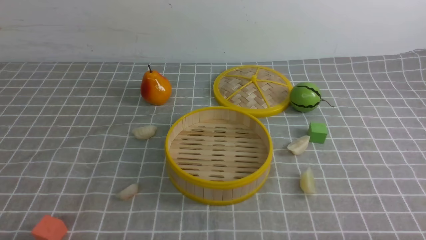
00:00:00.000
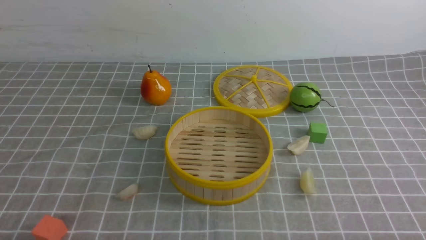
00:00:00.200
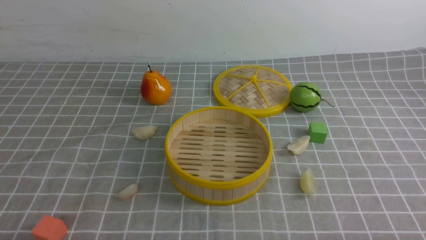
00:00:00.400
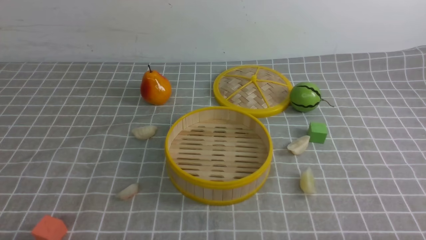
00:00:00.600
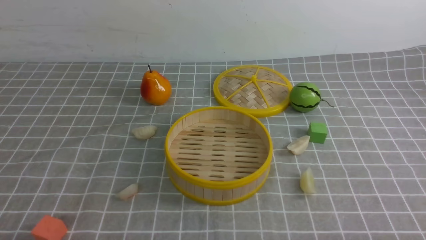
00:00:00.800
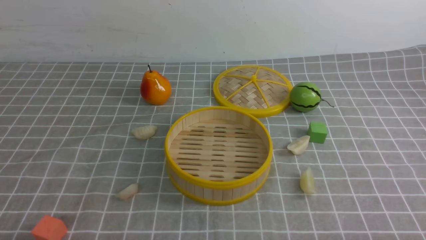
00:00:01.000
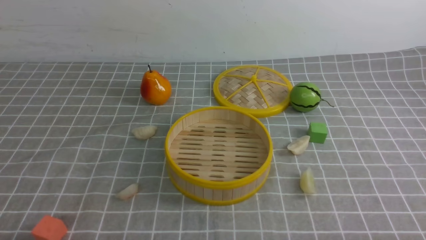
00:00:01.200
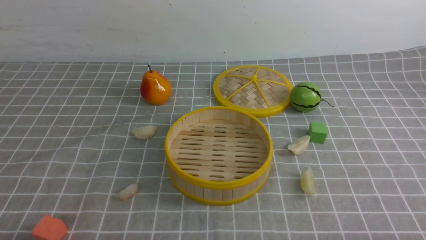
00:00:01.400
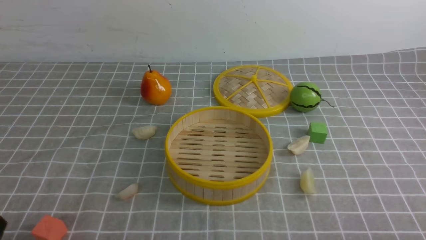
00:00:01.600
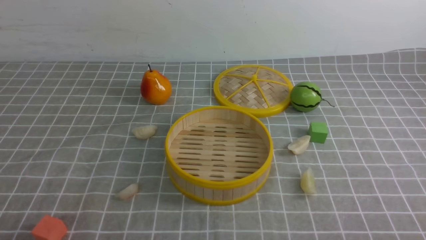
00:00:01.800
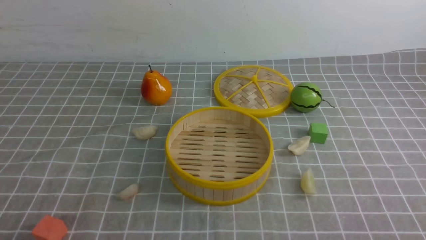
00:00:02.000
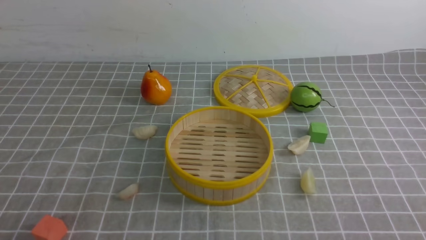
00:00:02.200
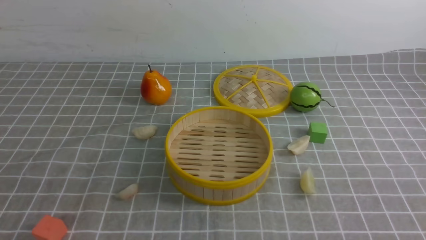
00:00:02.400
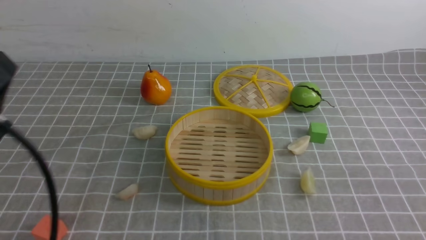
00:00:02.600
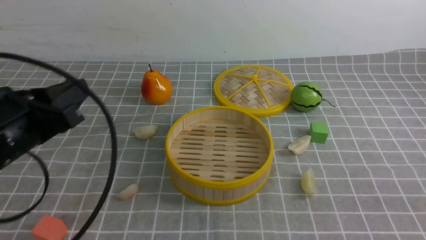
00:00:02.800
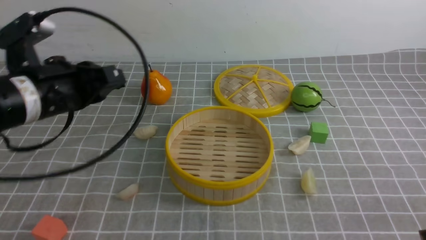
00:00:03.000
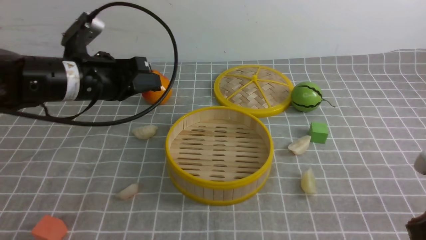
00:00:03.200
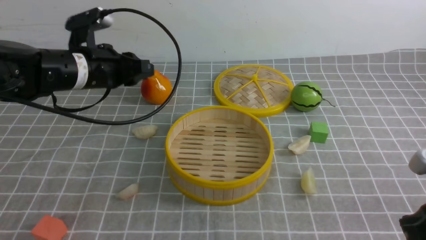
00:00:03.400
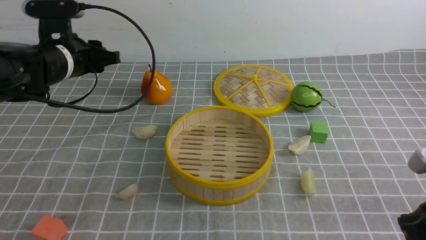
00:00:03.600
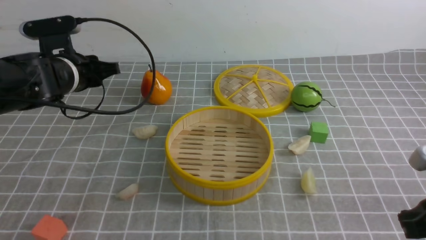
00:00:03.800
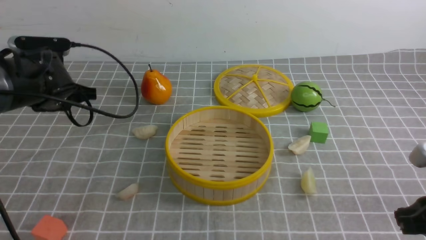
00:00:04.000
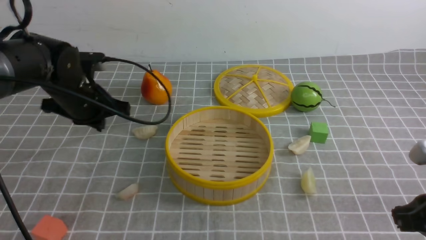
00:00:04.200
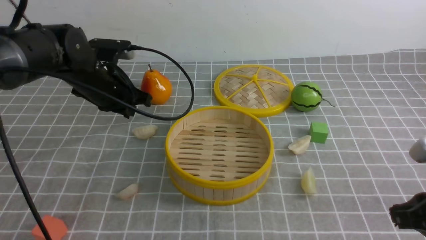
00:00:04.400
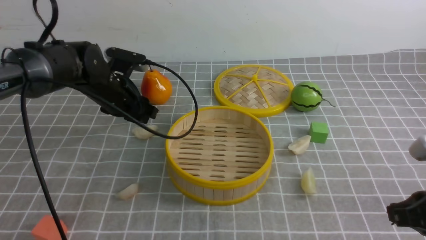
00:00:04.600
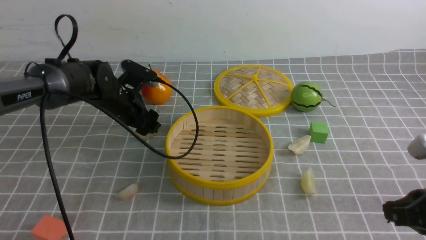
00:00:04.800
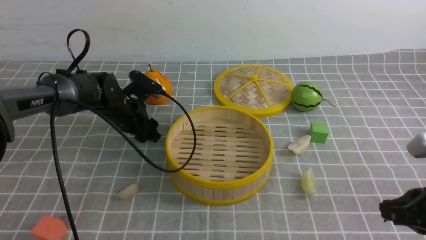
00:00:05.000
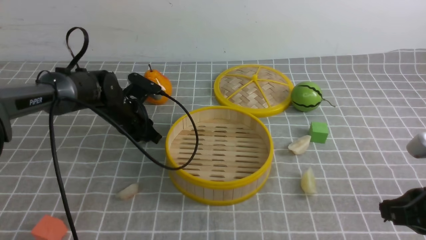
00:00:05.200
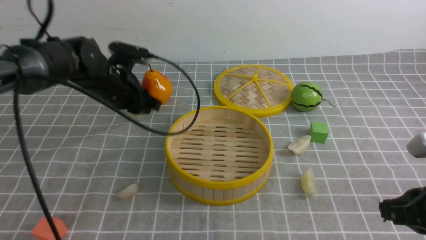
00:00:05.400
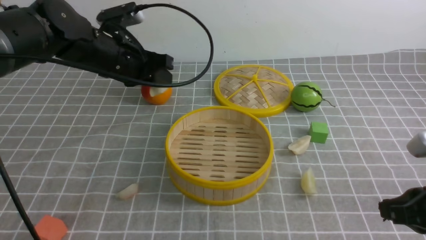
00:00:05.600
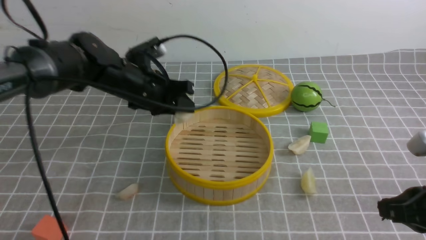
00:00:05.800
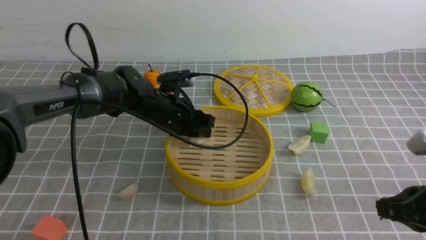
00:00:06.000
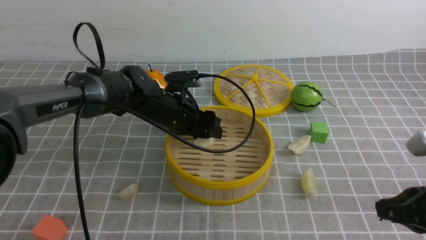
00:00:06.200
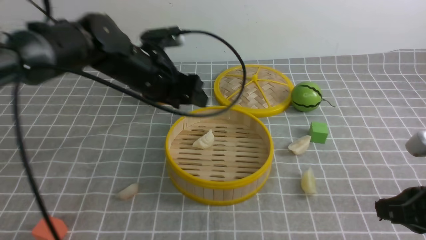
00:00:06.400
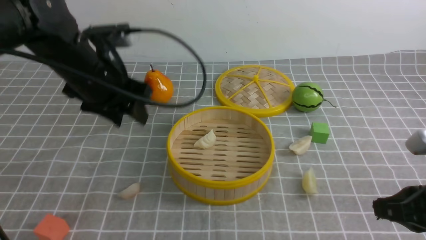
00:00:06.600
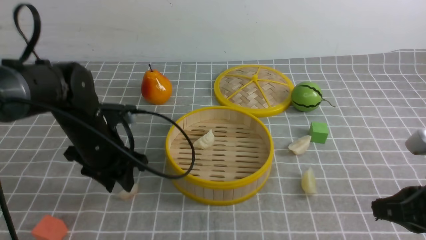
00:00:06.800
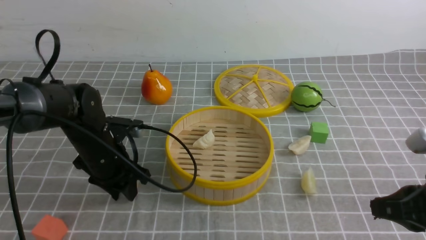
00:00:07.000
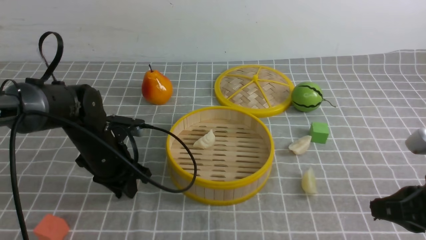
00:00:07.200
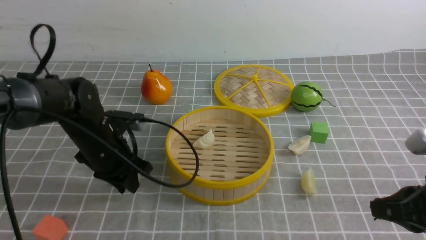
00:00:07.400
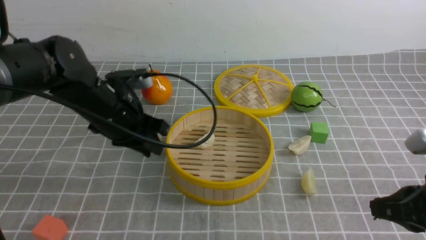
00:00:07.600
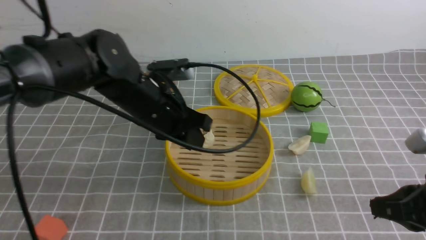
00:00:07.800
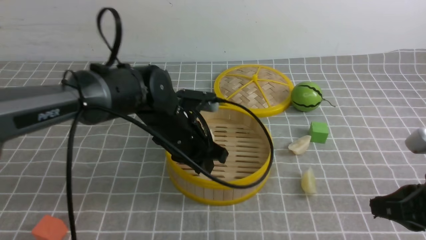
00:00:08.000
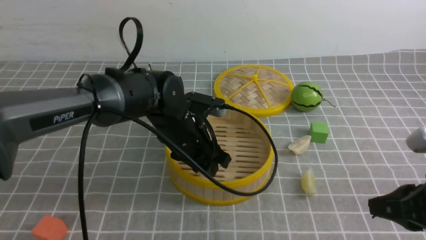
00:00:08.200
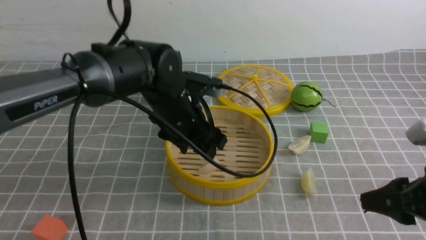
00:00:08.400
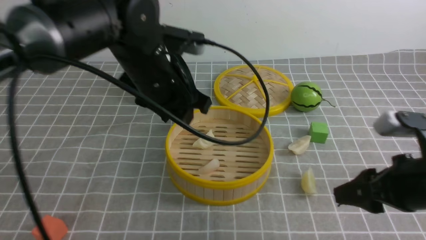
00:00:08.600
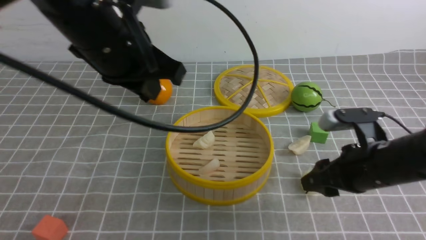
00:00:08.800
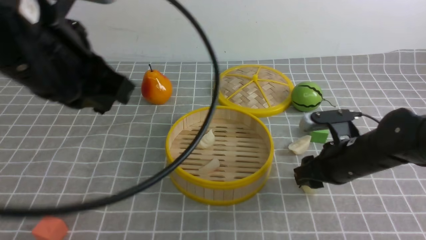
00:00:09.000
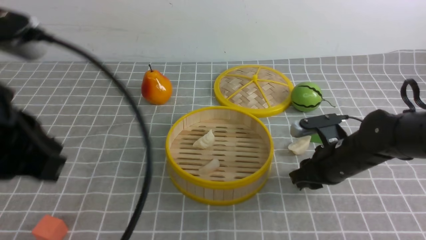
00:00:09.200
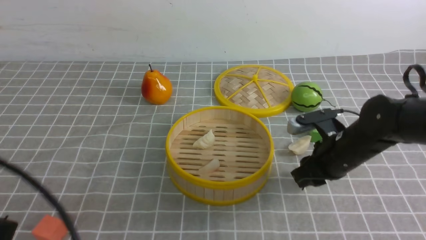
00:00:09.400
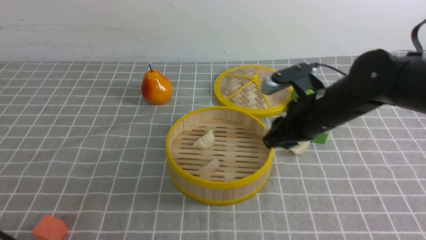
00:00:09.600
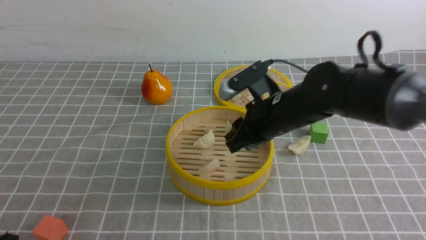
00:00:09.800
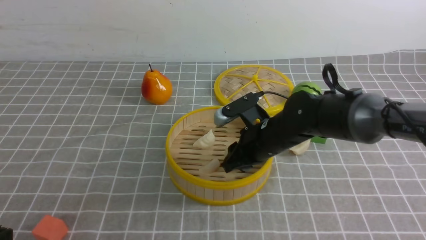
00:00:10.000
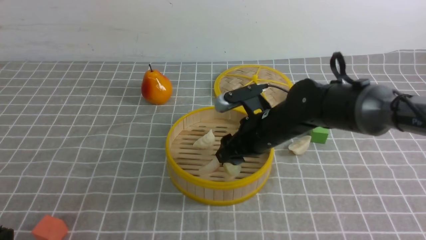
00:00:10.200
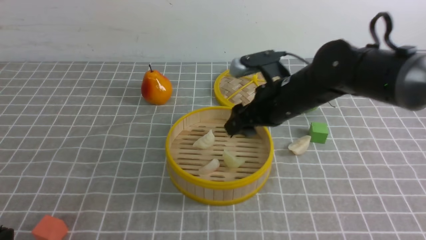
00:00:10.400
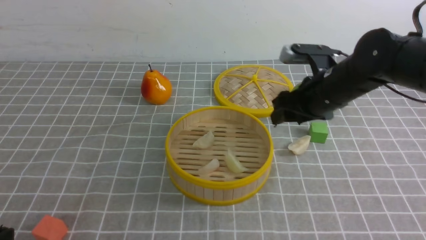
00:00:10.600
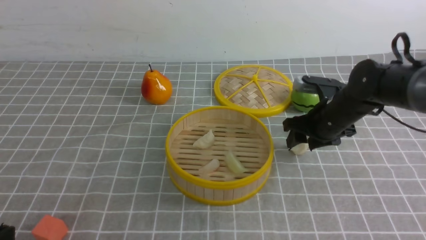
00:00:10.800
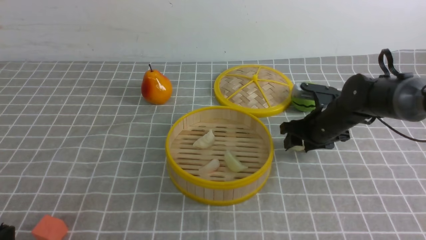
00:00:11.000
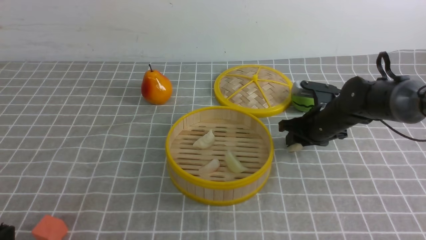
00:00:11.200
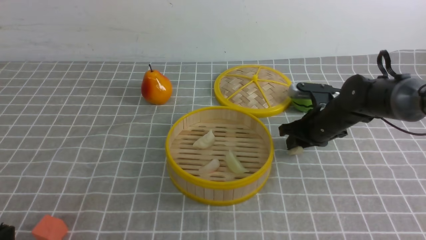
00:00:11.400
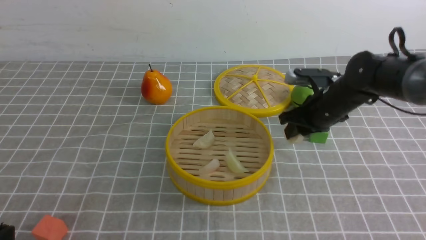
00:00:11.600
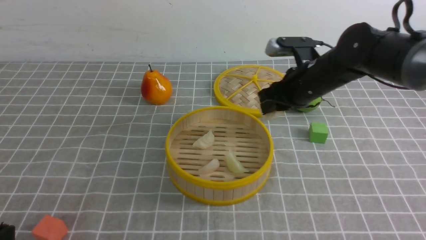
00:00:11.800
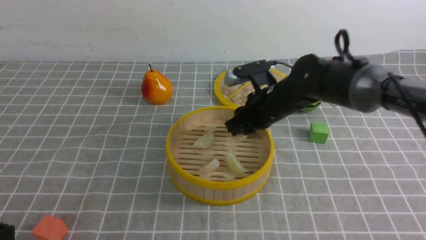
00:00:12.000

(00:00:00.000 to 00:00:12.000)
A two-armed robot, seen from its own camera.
Task of the whole recording: put the dumplings into the steamer on the table with the grey tablecloth.
Step, 00:00:00.000 - 00:00:05.200: use the left arm to grab a dumpling.
Step, 00:00:05.400 - 00:00:06.200: use the left arm to put the dumpling into the steamer.
Step, 00:00:06.400 - 00:00:07.400: use the left arm to grab a dumpling.
Step, 00:00:07.600 - 00:00:08.400: use the left arm to put the dumpling into the steamer.
Step, 00:00:08.600 - 00:00:09.400: use the right arm to grab a dumpling.
Step, 00:00:09.600 - 00:00:10.200: use the right arm to put the dumpling into the steamer.
Step, 00:00:10.400 - 00:00:11.400: use the right arm to grab a dumpling.
00:00:01.600 - 00:00:03.000: The left gripper is displaced forward and upward by roughly 25 cm.
00:00:03.000 - 00:00:04.400: The left gripper moves forward and downward, approximately 15 cm.
00:00:04.400 - 00:00:06.000: The left gripper goes up and down, approximately 10 cm each way, reversing 2 times, and opens its fingers.
00:00:06.000 - 00:00:07.600: The left gripper swings up and down, approximately 10 cm each way, with 2 reversals, and closes up.
00:00:07.600 - 00:00:09.000: The left gripper heads upward and backward, covering approximately 25 cm, and opens, then closes once more. Meanwhile the right gripper moves forward, downward and to the left, some 15 cm, and opens.
00:00:09.000 - 00:00:10.400: The left gripper goes about 25 cm downward, backward and to the left. The right gripper travels to the left, upward and forward by roughly 10 cm.
00:00:10.400 - 00:00:12.000: The right gripper reaches some 10 cm to the right, then returns, and closes up.

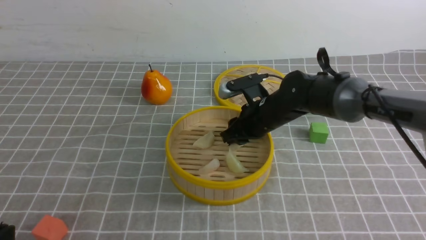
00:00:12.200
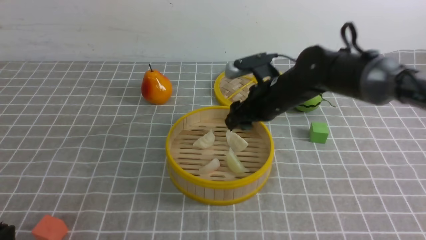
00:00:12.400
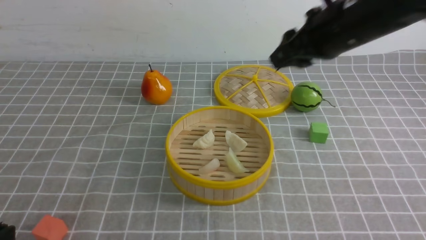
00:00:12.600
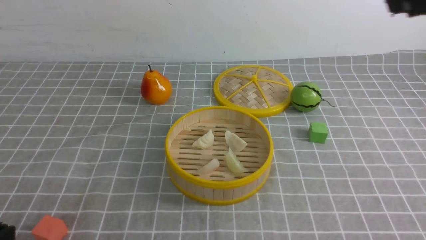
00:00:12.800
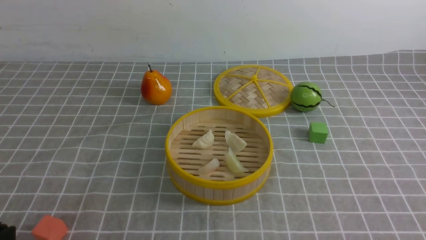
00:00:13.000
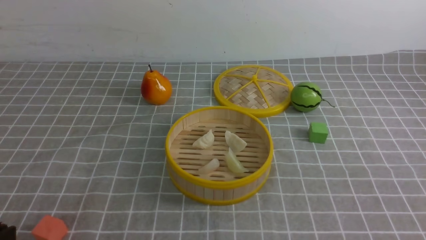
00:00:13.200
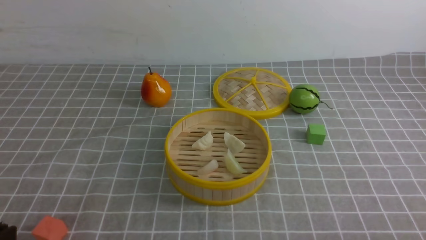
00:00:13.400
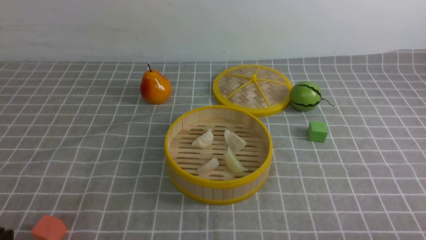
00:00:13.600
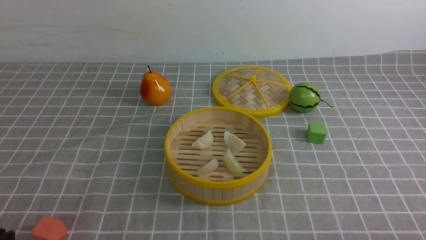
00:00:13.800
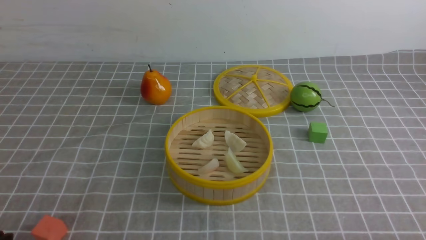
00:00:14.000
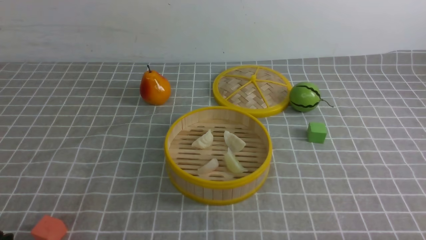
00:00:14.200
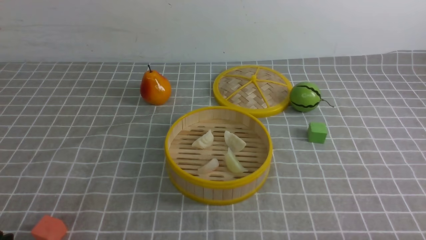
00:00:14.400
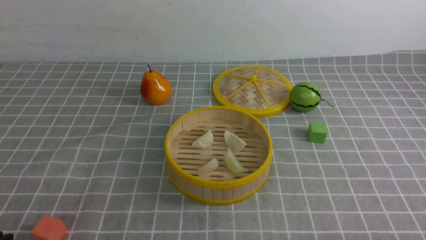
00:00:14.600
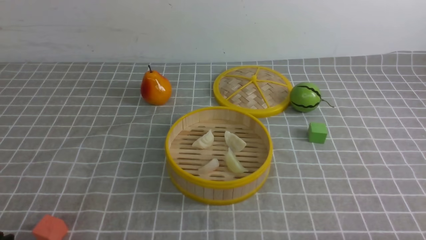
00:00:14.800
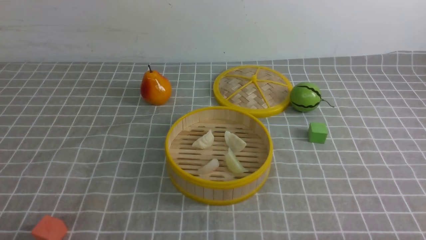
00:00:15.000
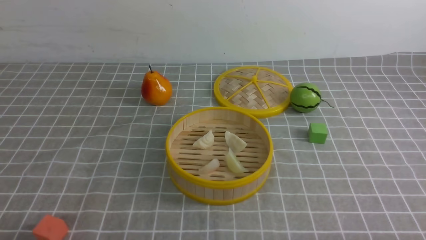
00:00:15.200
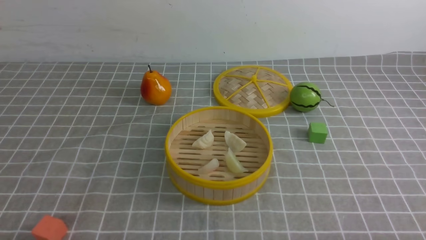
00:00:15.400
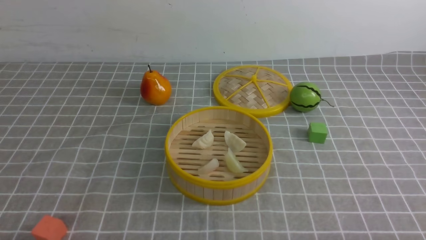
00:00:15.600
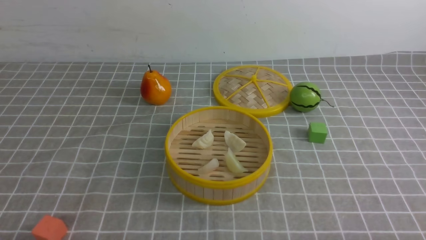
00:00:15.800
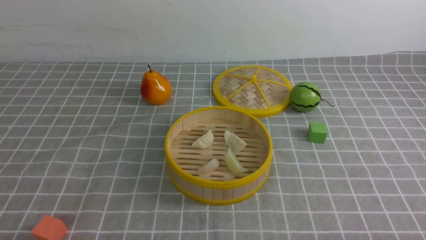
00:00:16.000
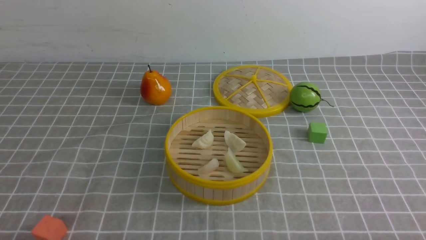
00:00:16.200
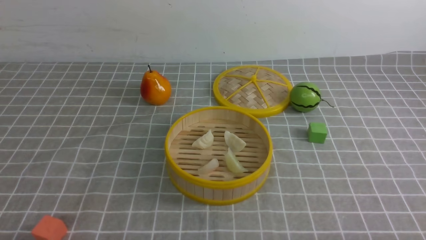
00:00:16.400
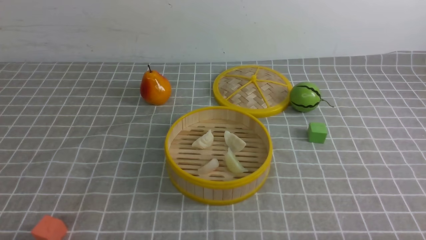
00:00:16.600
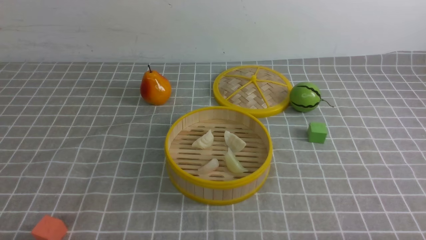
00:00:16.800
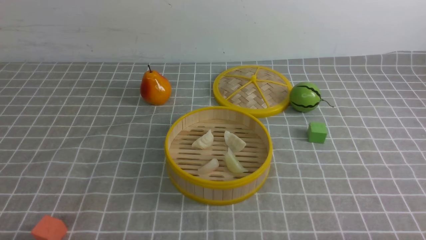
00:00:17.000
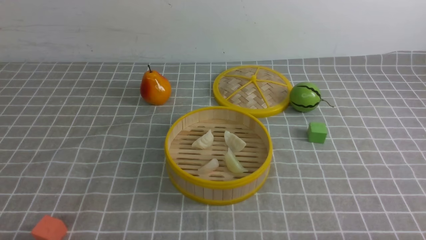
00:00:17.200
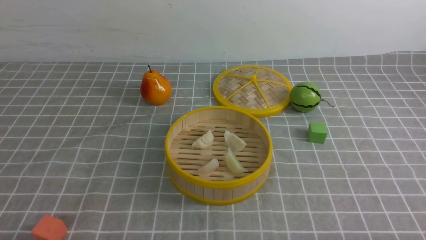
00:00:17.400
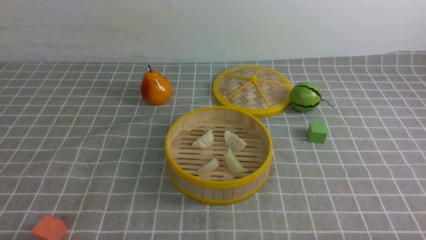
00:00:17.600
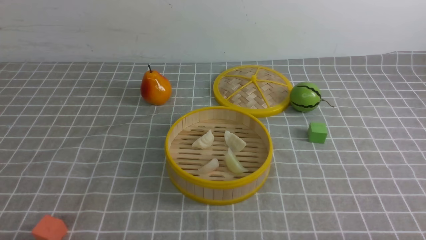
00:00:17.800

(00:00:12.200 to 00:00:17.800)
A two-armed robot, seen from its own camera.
Task of the whole recording: put the dumplings into the steamer on the table with the grey tablecloth.
00:00:12.200 - 00:00:13.600: The right gripper moves backward and to the right, about 40 cm, and closes up.
00:00:16.400 - 00:00:17.800: The two grippers keep their place.
